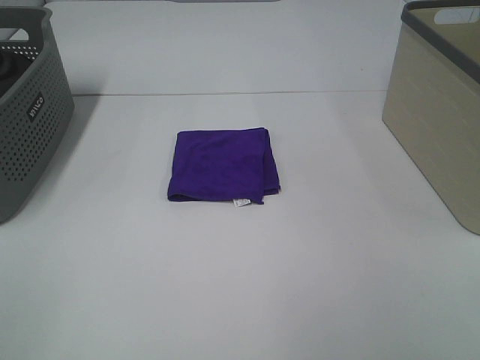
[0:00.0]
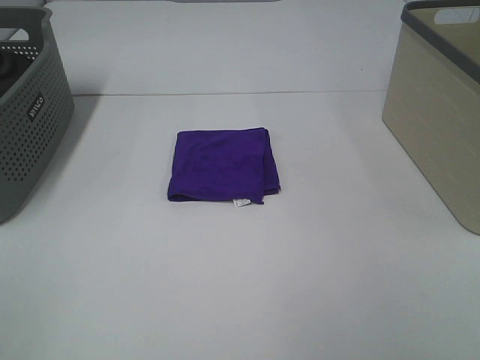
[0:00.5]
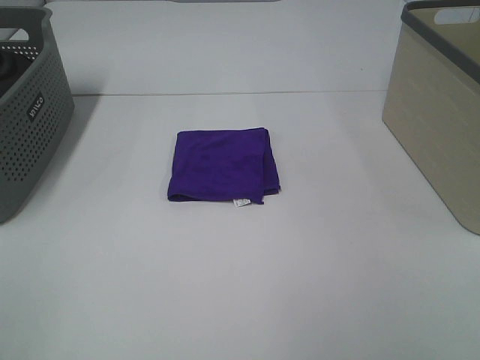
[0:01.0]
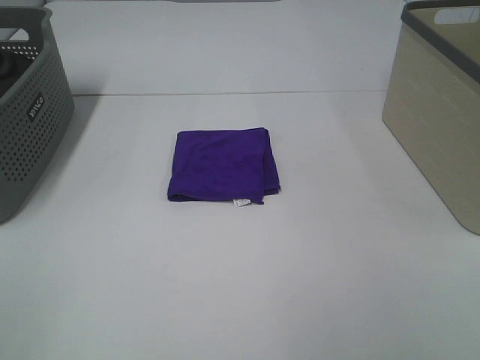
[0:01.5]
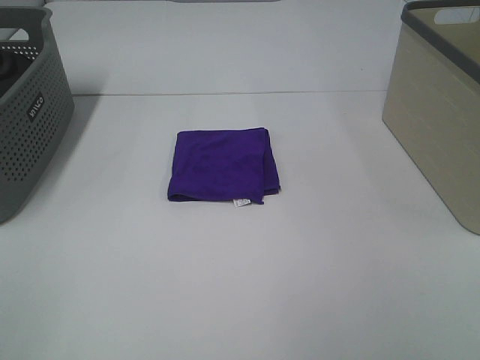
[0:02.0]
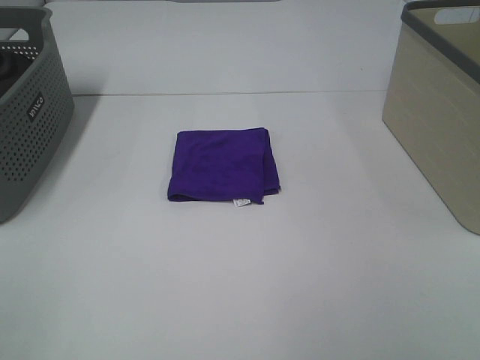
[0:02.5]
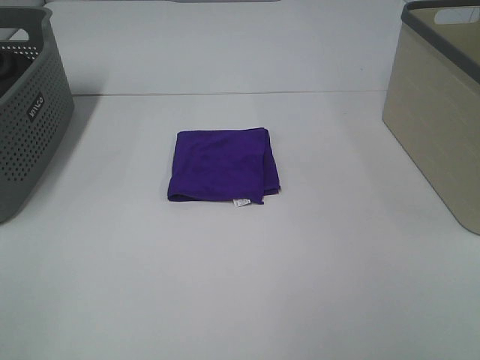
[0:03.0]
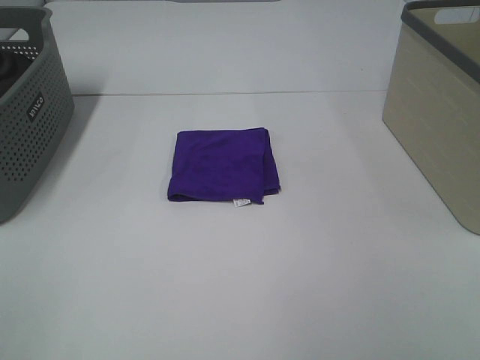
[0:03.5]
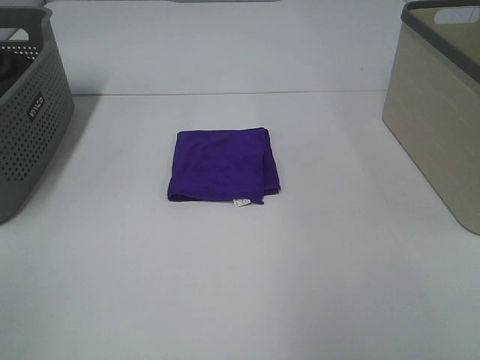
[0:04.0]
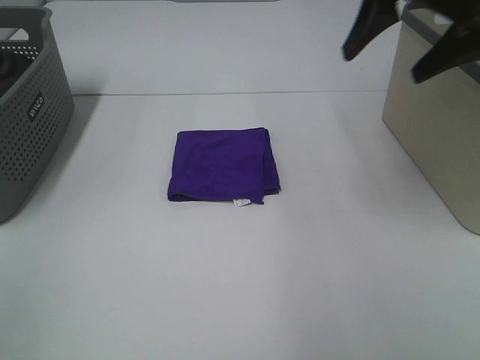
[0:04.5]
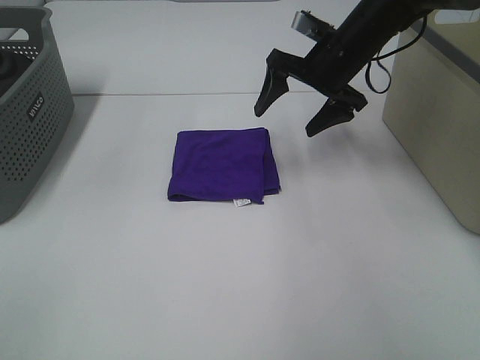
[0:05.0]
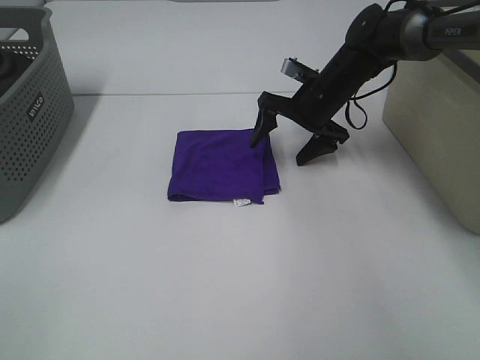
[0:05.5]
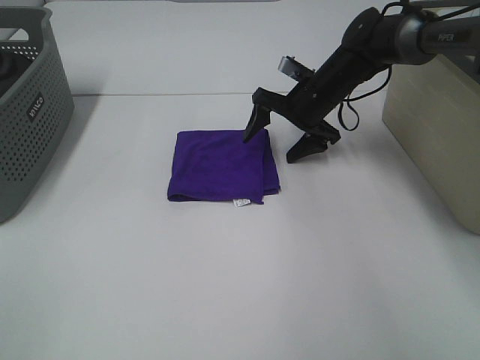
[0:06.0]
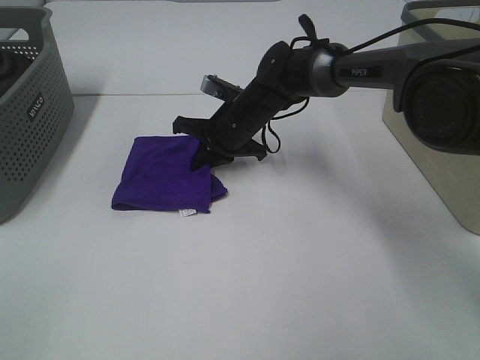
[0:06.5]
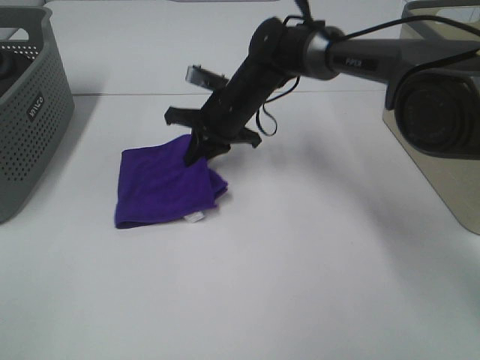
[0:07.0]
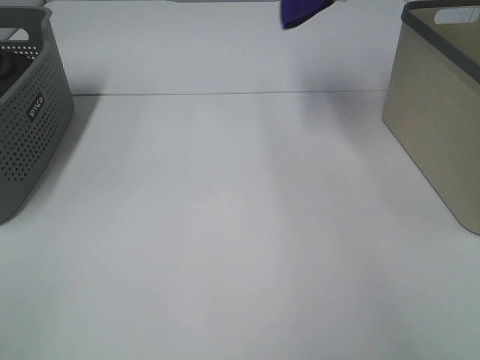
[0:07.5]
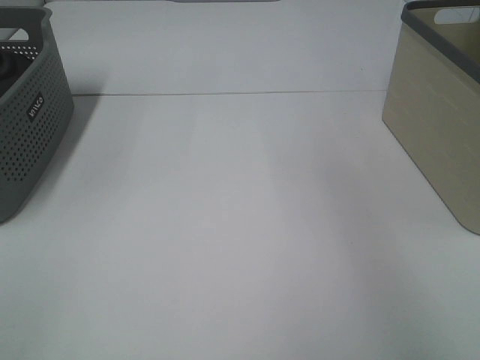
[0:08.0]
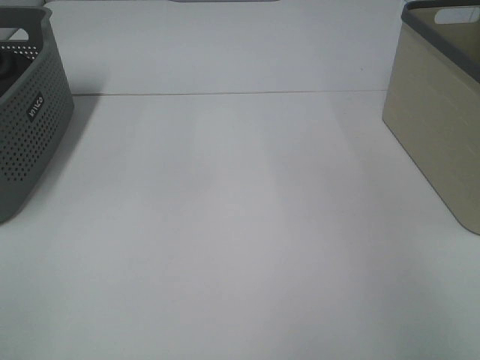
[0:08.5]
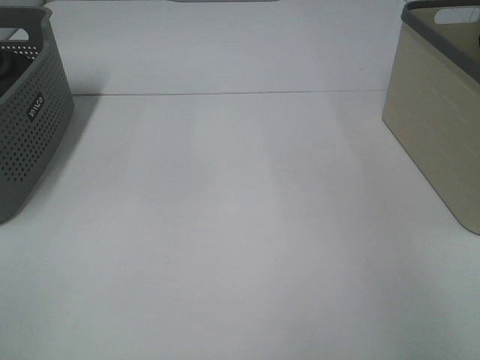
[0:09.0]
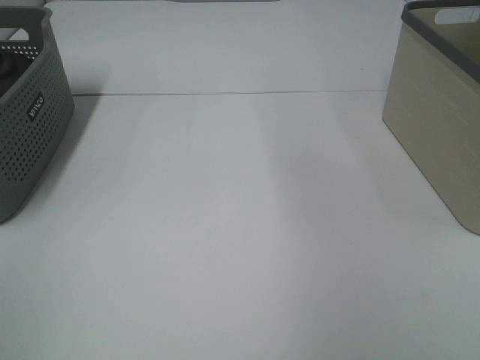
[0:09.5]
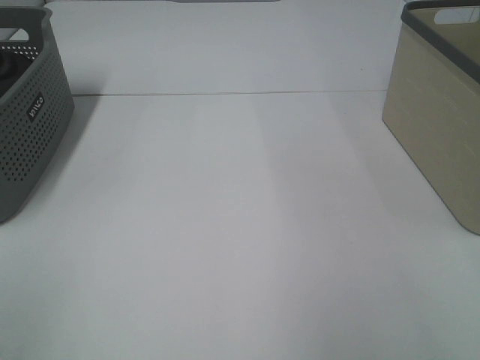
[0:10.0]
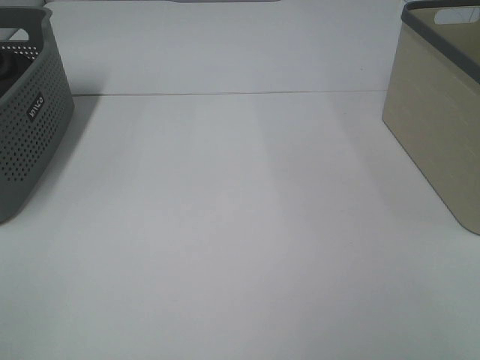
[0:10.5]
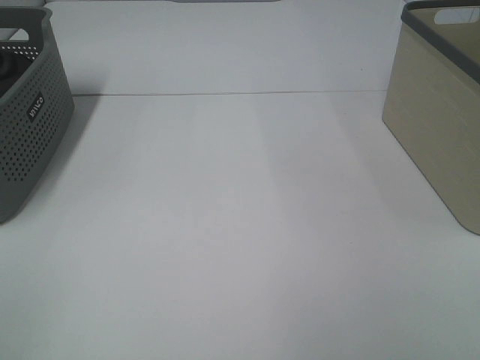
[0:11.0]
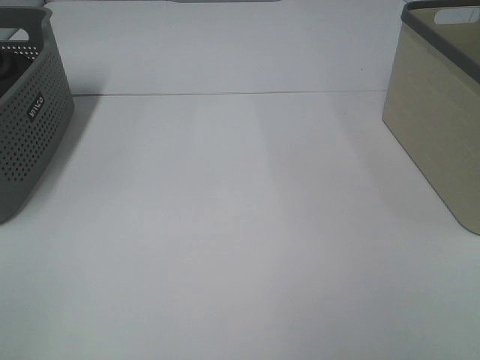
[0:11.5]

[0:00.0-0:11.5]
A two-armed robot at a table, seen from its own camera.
Step, 0:00.0 to 0:06.5: Right hand: grab the folded purple towel.
Step, 0:07.0 to 0:08.5: Right hand: place the purple towel in right basket.
0:00.0 to 0:02.0: Both grippers stay put.
0:04.0 to 0:06.0: The right gripper heads downward, forward and to the left, covering roughly 50 cm.
0:06.0 to 0:07.5: The right gripper moves upward, approximately 30 cm, and closes its fingers.
0:07.5 to 0:09.5: The right gripper travels backward and to the right by about 15 cm, and opens its fingers.

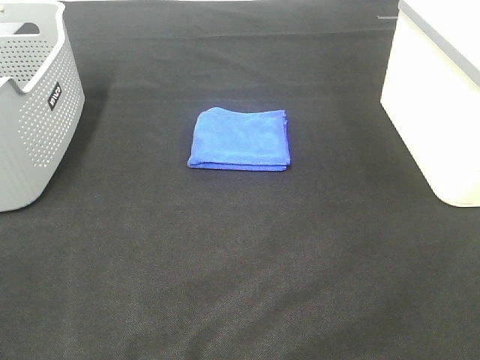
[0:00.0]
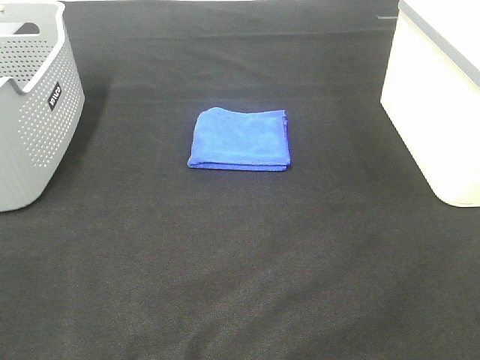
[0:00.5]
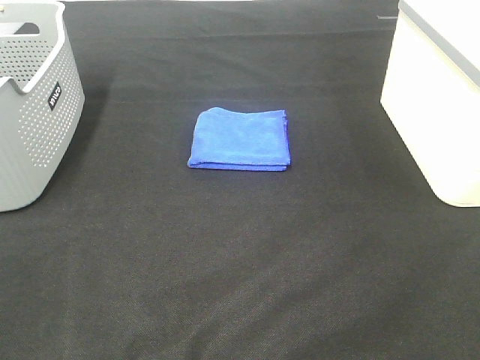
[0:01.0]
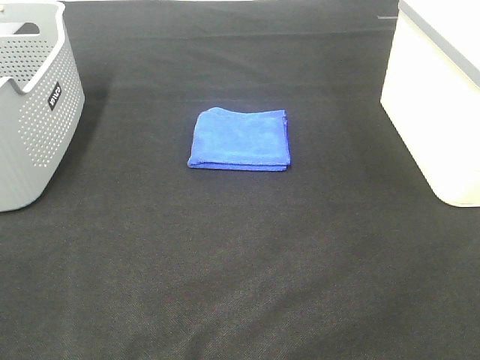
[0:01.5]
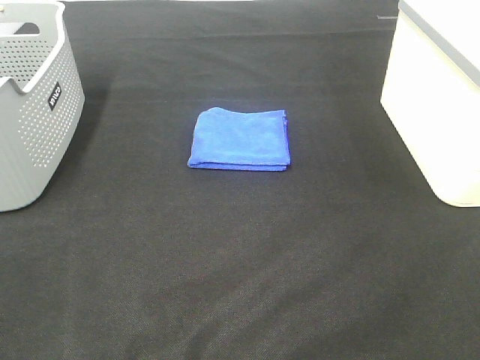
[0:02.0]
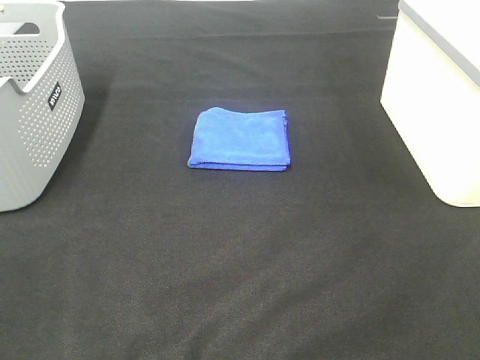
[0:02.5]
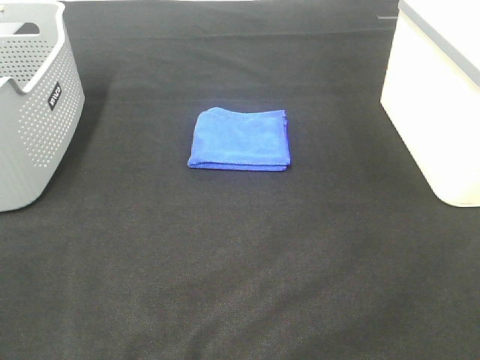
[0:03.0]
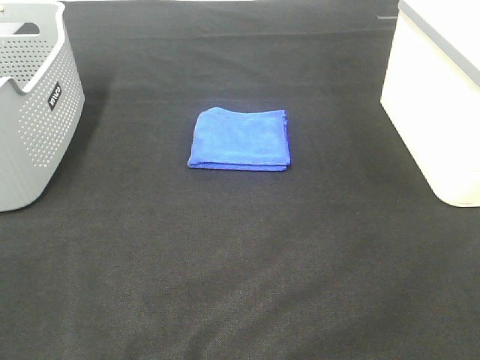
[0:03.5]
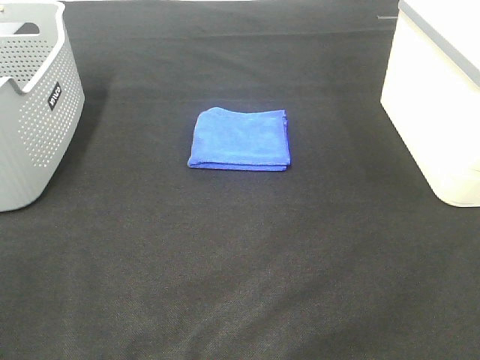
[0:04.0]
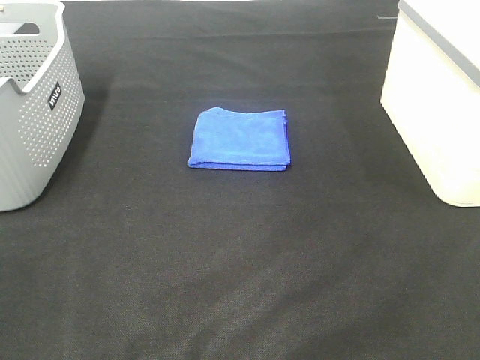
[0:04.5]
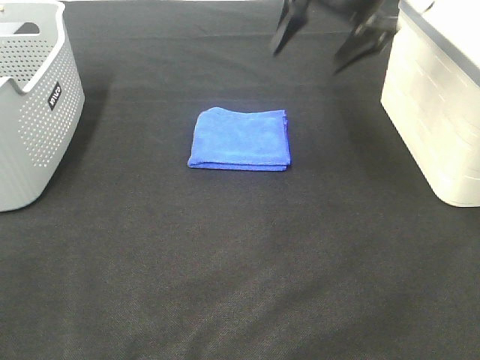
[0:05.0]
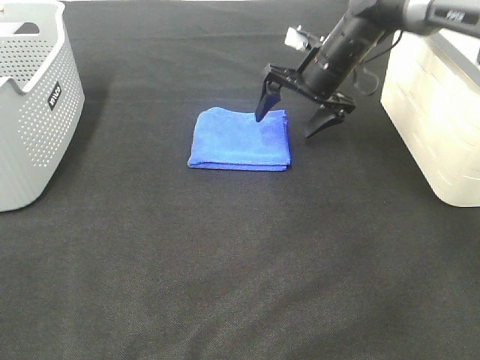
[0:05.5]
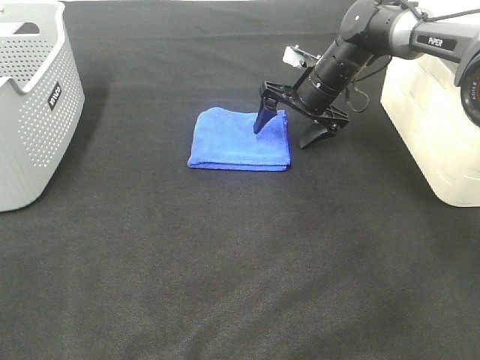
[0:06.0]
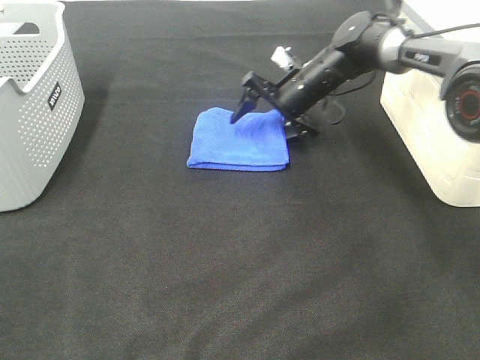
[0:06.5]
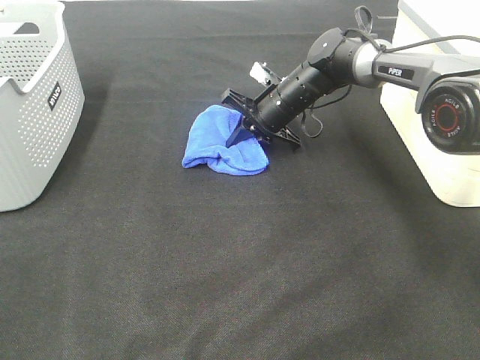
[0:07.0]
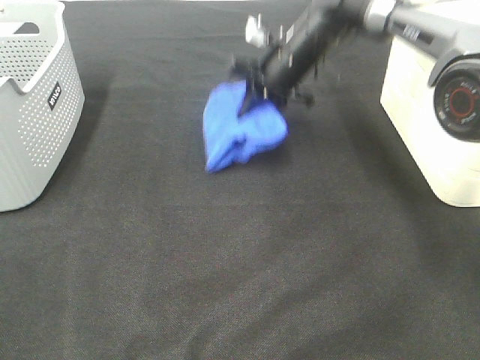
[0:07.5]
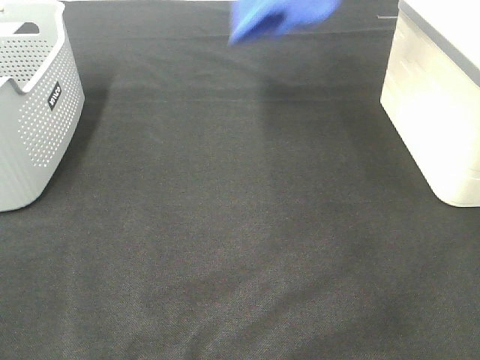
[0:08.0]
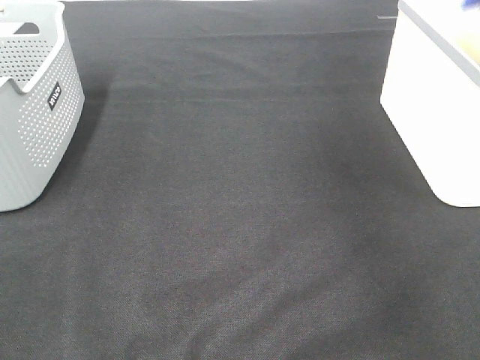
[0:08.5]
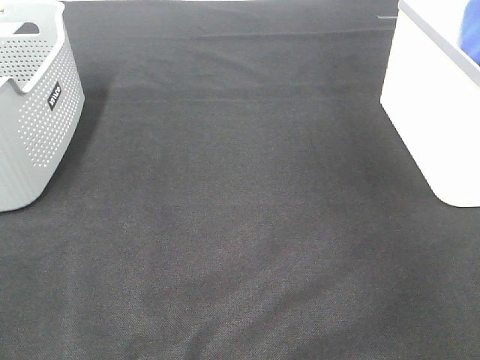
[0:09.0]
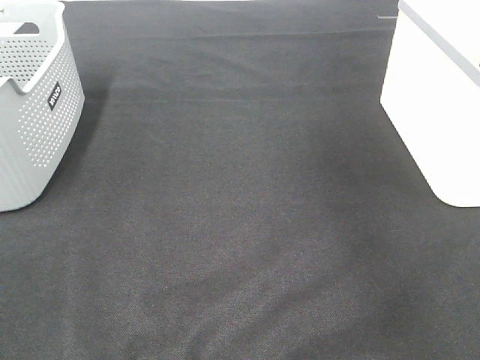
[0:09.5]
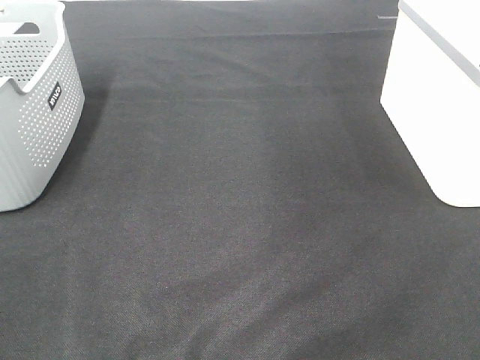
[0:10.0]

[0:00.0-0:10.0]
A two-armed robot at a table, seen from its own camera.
Step, 0:00.0 to 0:07.0: Right hand: grab the folded blue towel.
Step, 0:07.5 to 0:09.0: Right hand: place the blue towel in right basket.
0:00.0 to 0:02.0: Neither gripper changes place.
0:04.0 to 0:06.0: The right gripper goes about 50 cm forward, downward and to the left.
0:06.0 to 0:08.0: The right gripper goes some 25 cm upward, and closes its fingers.
0:08.0 to 0:10.0: The right gripper shifts roughly 20 cm backward, to the right and upward, and opens its fingers.

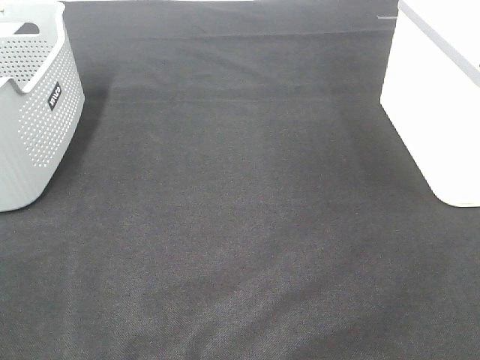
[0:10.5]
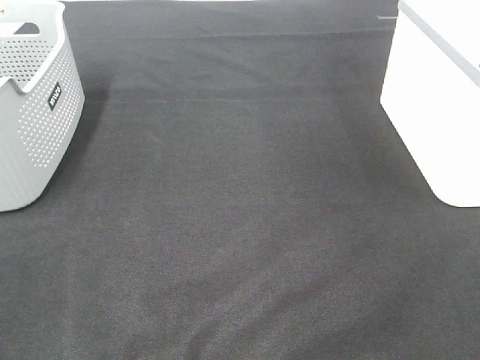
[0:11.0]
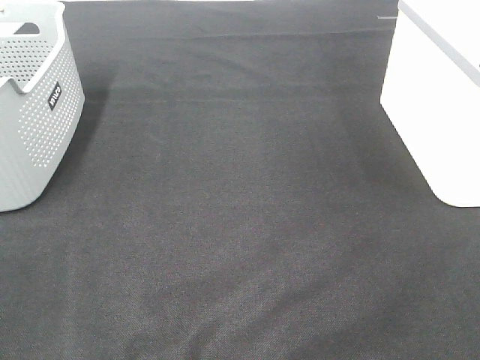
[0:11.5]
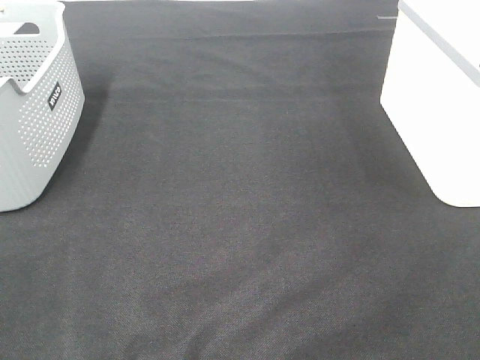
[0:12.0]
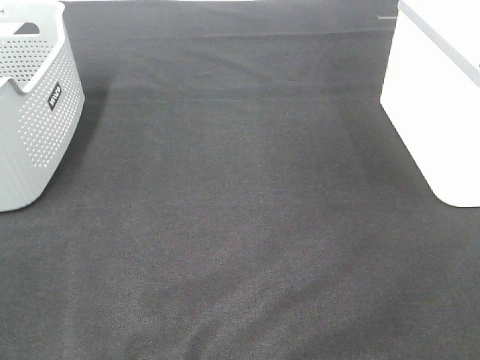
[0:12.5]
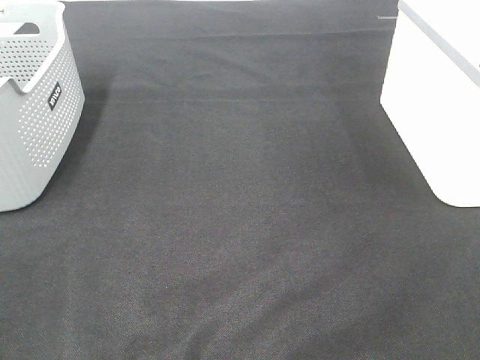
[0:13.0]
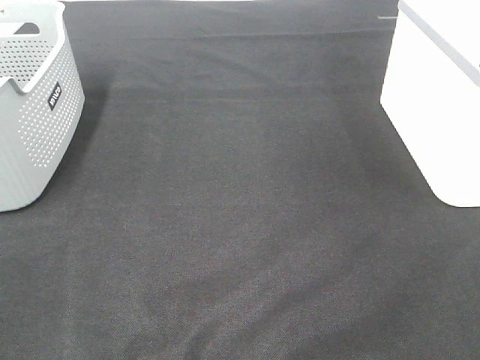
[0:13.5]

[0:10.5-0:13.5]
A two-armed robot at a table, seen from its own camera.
0:12.0 to 0:13.5: Both grippers stay put.

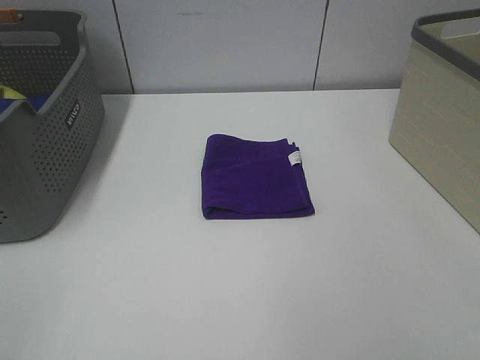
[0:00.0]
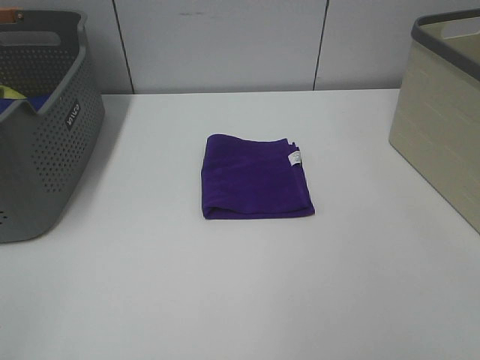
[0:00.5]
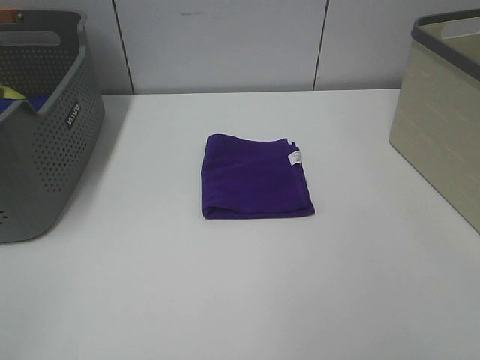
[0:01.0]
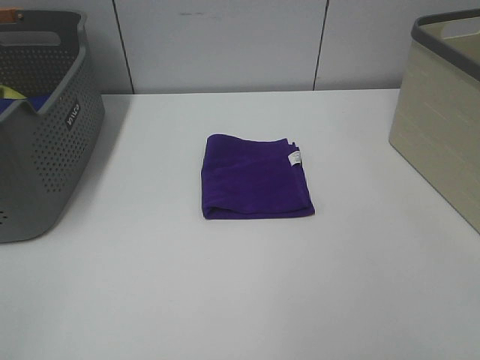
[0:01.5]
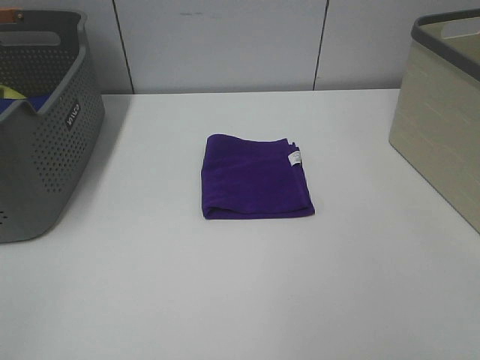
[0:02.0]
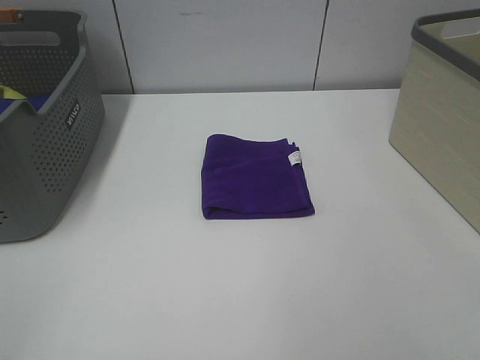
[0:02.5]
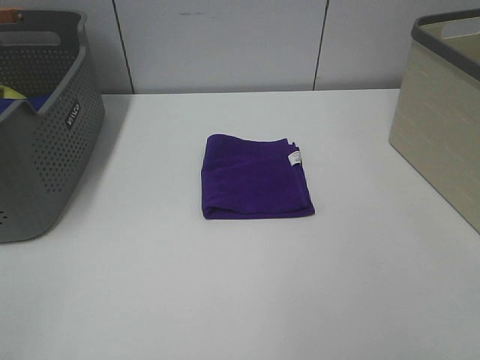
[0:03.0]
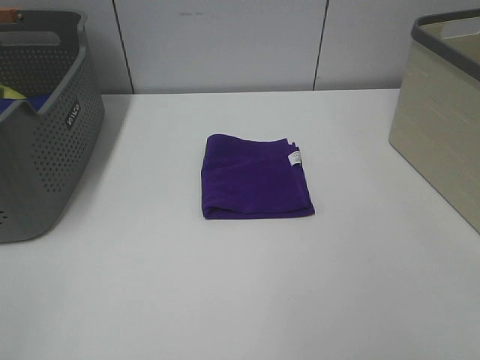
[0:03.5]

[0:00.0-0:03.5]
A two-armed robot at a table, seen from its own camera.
0:00.0 to 0:02.0: Both grippers stay put.
